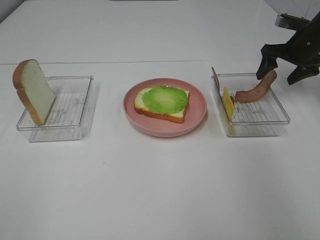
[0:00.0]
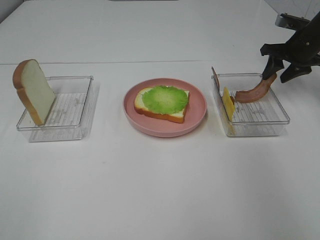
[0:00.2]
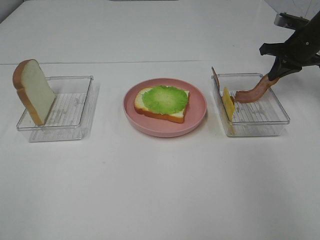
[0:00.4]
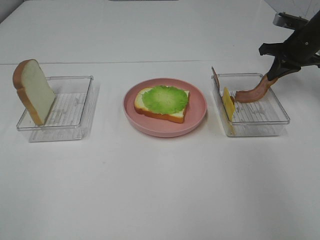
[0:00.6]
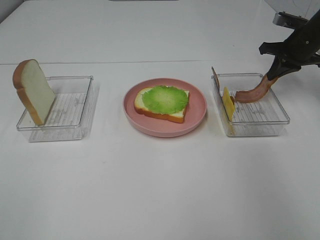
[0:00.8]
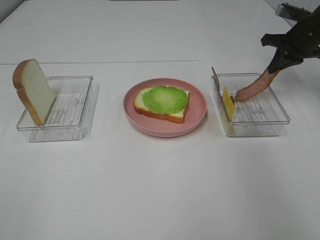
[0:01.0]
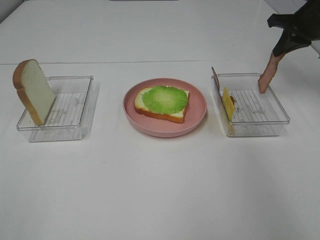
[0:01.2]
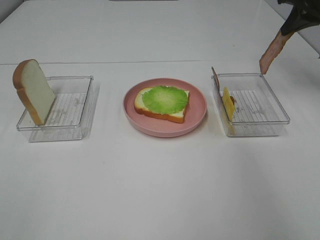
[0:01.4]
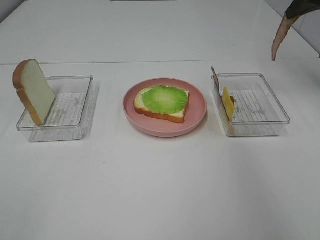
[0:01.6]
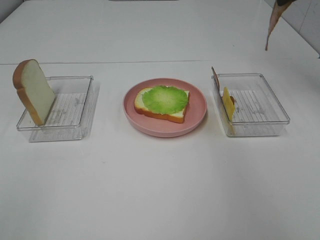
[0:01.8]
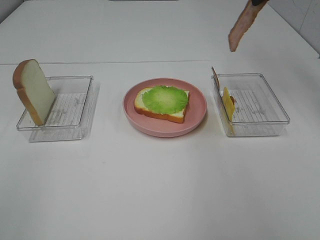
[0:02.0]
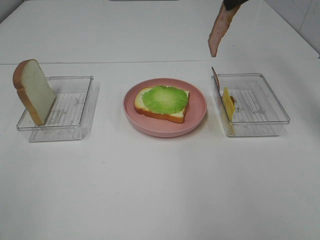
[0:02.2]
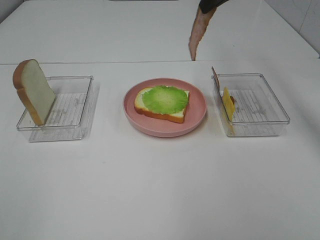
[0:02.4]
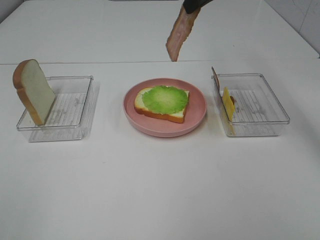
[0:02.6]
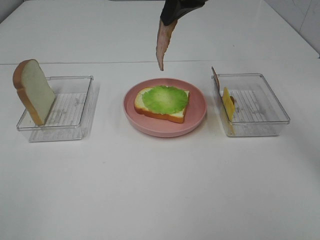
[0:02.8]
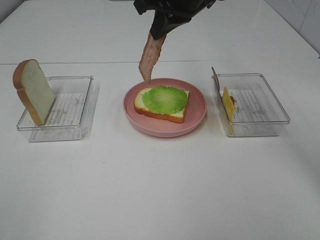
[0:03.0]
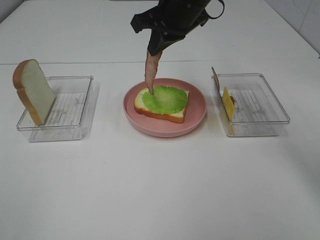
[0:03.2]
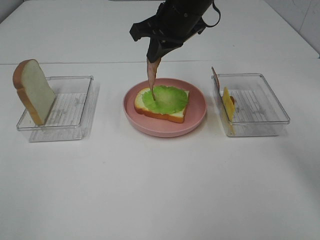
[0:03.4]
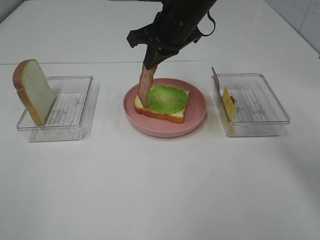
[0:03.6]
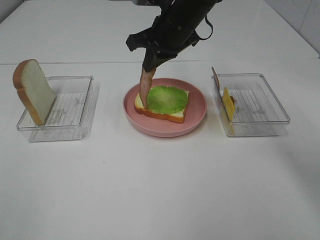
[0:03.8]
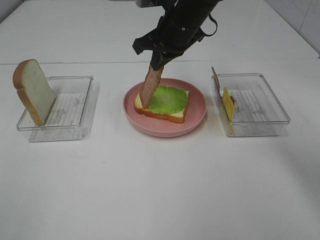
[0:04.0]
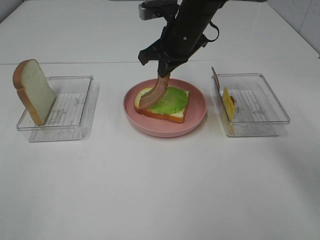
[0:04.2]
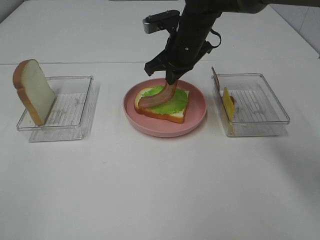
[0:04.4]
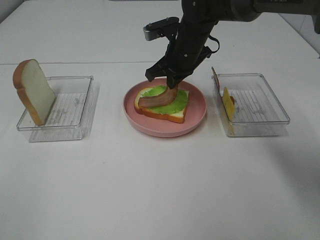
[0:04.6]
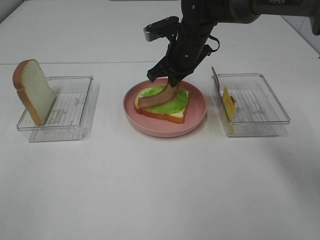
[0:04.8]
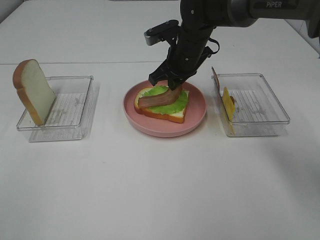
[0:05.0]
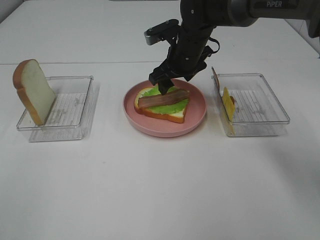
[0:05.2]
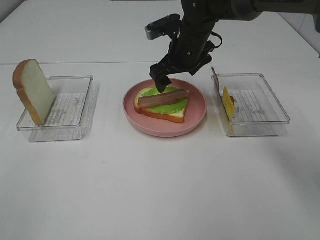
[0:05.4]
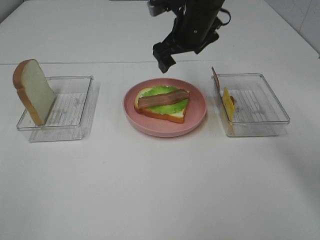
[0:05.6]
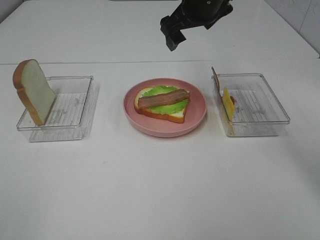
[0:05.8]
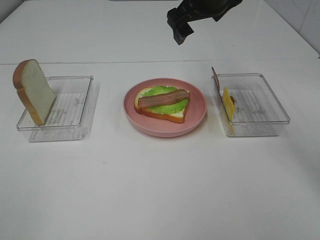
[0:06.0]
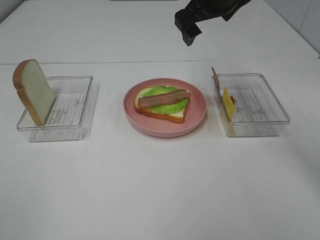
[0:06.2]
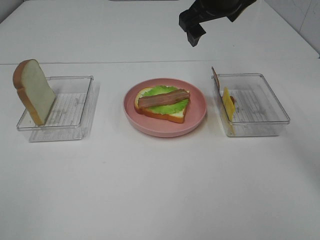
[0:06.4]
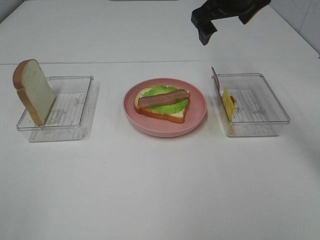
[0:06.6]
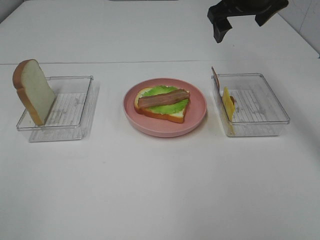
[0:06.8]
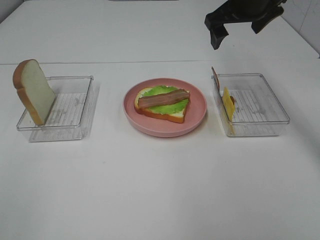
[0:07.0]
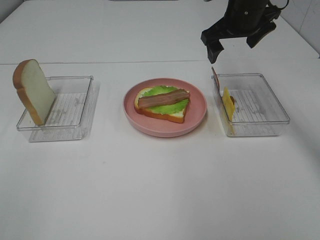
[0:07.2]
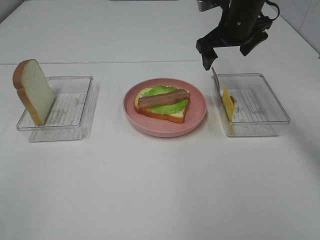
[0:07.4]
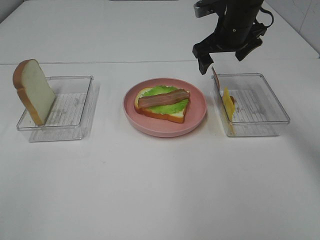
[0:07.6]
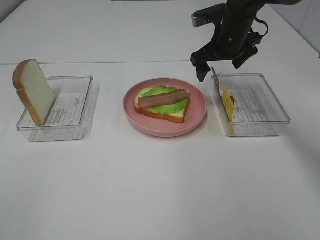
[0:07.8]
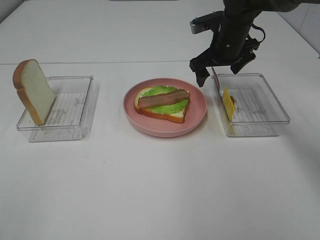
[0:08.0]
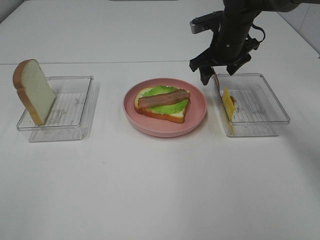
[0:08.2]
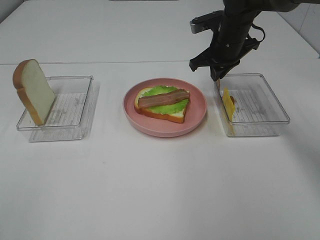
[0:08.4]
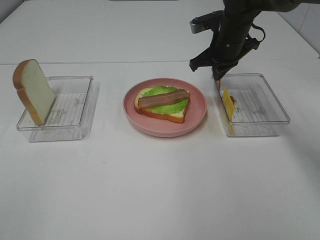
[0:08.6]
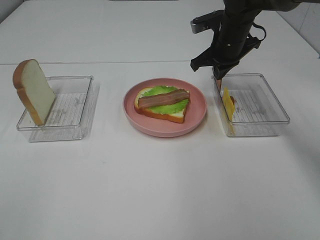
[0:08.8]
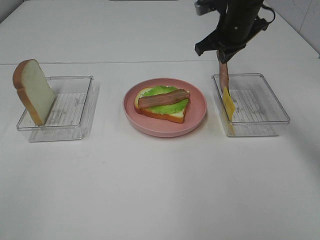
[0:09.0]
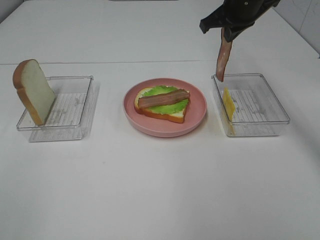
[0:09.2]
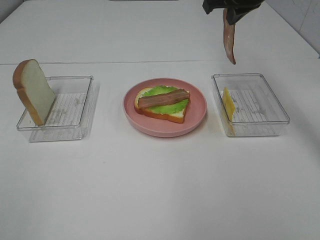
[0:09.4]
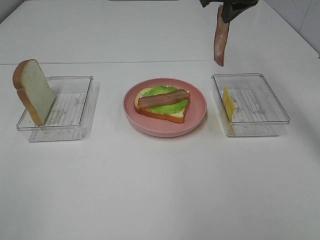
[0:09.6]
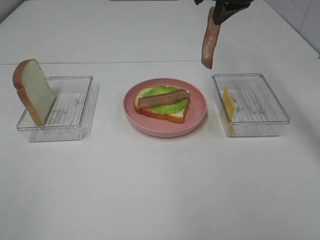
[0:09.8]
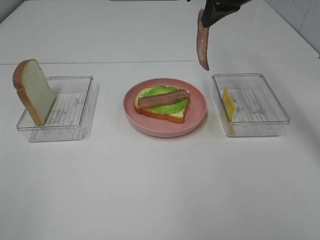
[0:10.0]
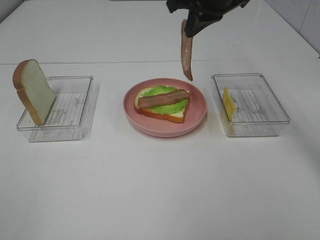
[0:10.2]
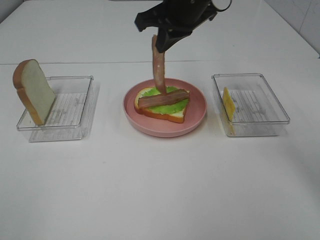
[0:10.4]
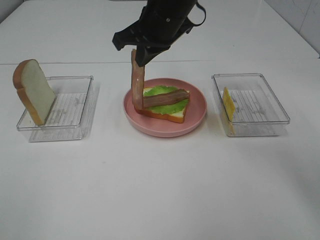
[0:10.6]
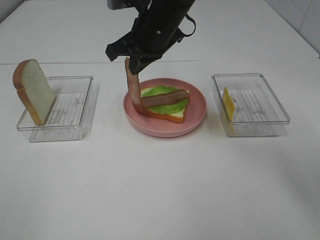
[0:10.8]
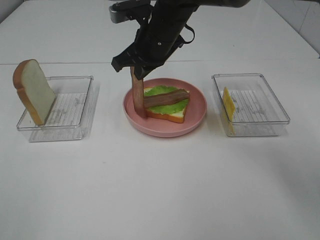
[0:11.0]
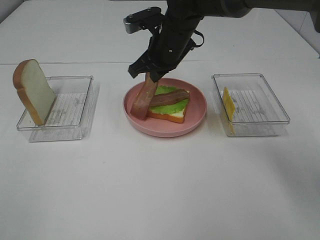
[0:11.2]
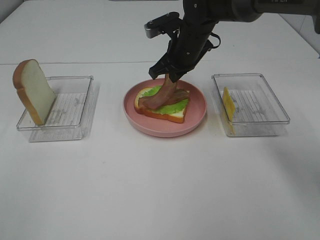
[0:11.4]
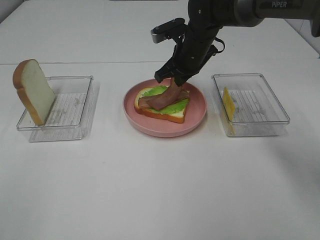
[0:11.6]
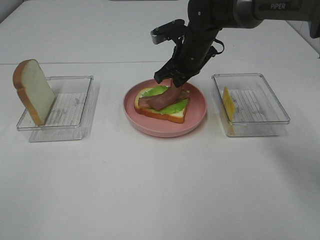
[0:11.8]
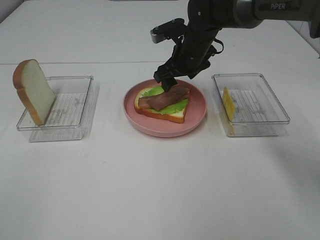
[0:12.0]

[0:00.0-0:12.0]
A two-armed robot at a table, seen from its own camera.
Task of the whole recording: Make sandwiches.
Step, 0:01.0 to 0:05.4: Right hand:place bacon on lettuce slice.
Step, 0:05.6 to 0:08.8: Right hand:grab the bacon.
0:00.0 to 0:01.6: The right gripper goes about 15 cm upward, and closes.
0:01.6 to 0:03.0: The right gripper heads to the left, covering about 25 cm.
0:03.0 to 0:04.4: The right gripper moves downward, some 10 cm.
0:04.4 to 0:06.0: The right gripper goes roughly 10 cm upward, and opens up.
0:06.0 to 0:07.6: The right gripper travels downward and to the right by approximately 10 cm.
0:07.6 to 0:09.0: The right gripper closes.
0:09.0 to 0:10.4: The right gripper heads to the left, backward and upward, covering about 15 cm.
0:10.4 to 0:12.0: The right gripper shifts roughly 15 cm downward and forward, and opens up.

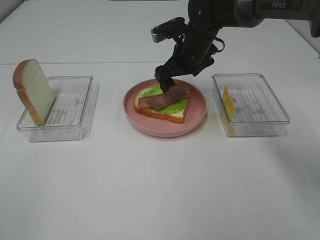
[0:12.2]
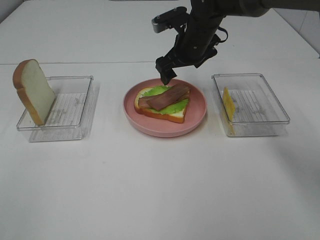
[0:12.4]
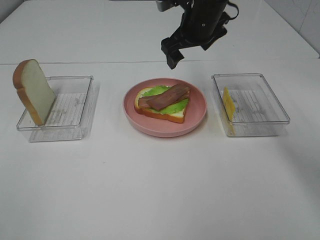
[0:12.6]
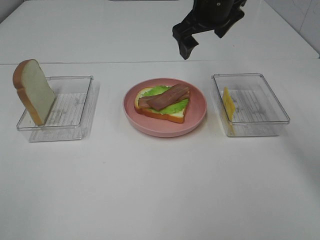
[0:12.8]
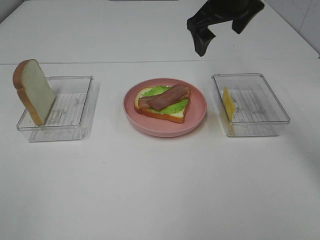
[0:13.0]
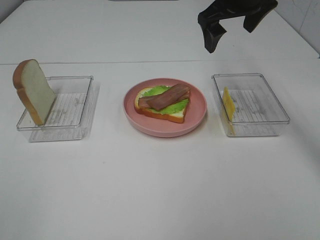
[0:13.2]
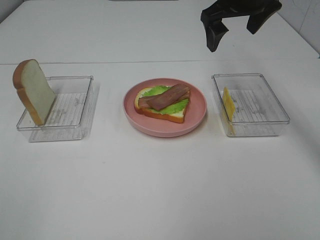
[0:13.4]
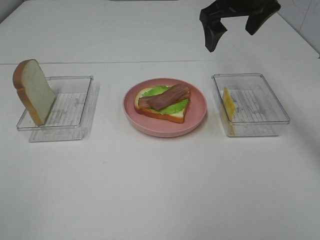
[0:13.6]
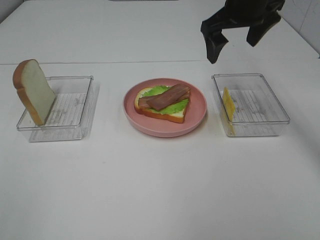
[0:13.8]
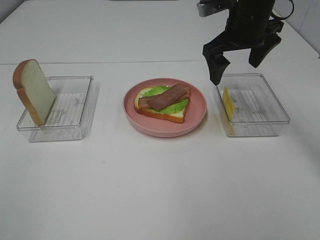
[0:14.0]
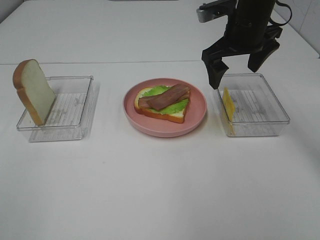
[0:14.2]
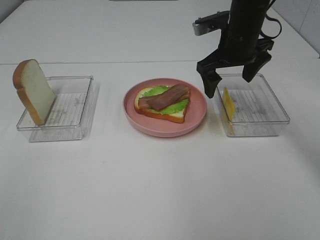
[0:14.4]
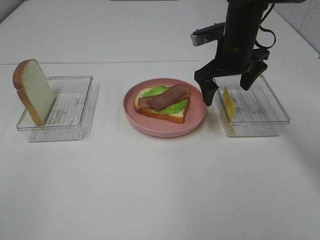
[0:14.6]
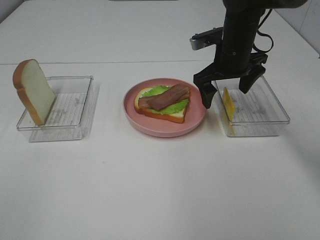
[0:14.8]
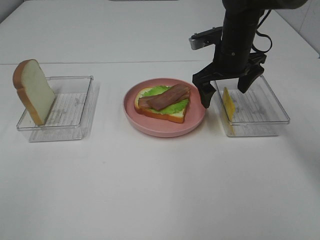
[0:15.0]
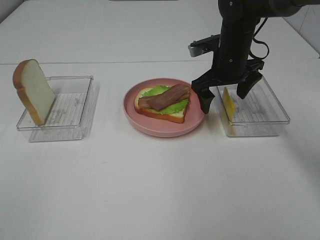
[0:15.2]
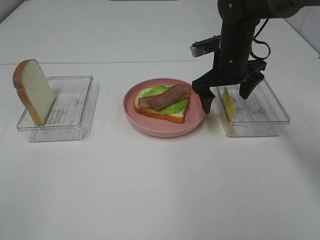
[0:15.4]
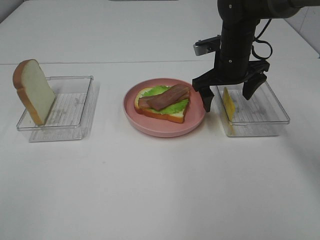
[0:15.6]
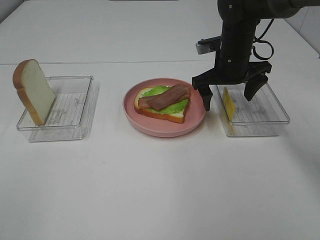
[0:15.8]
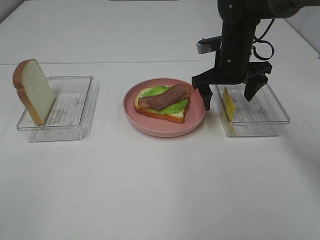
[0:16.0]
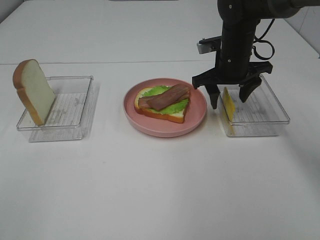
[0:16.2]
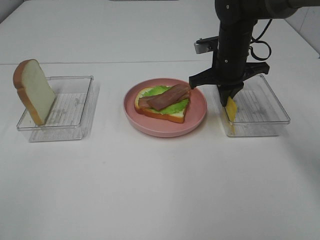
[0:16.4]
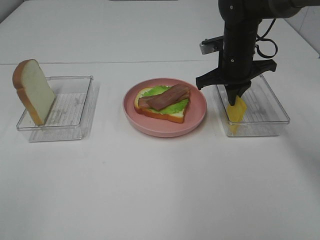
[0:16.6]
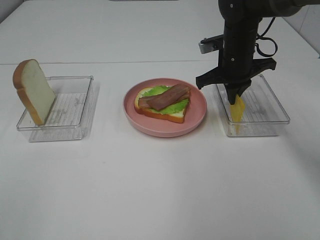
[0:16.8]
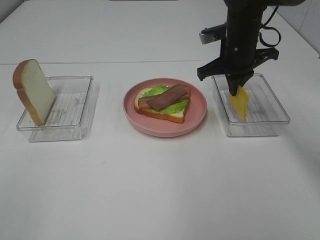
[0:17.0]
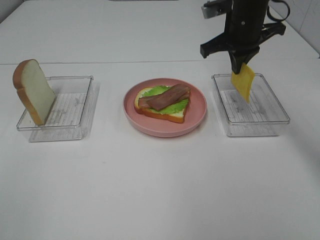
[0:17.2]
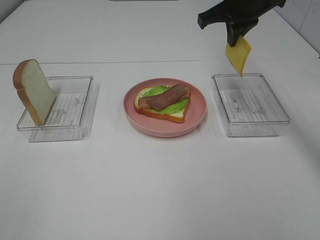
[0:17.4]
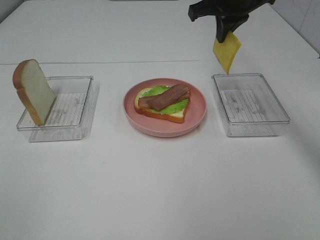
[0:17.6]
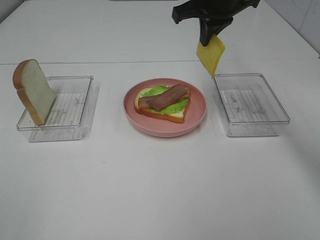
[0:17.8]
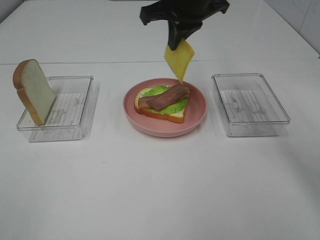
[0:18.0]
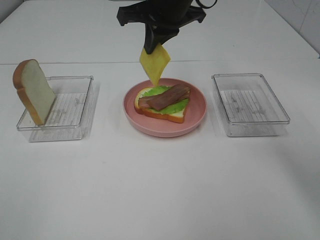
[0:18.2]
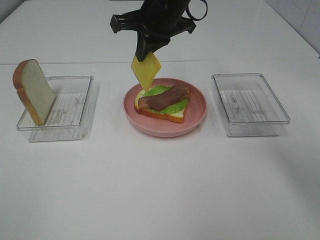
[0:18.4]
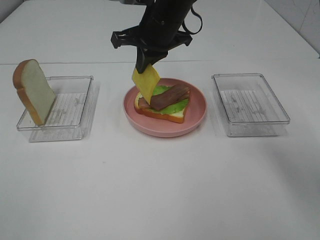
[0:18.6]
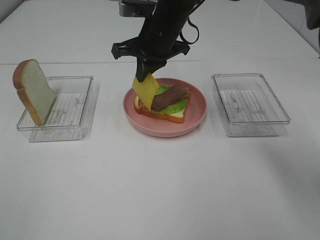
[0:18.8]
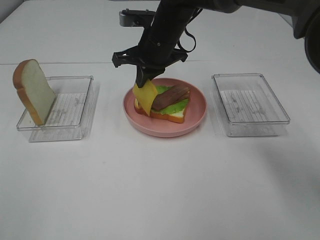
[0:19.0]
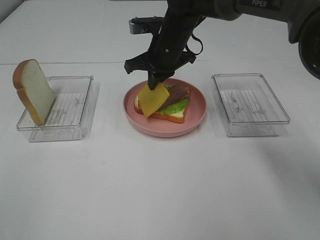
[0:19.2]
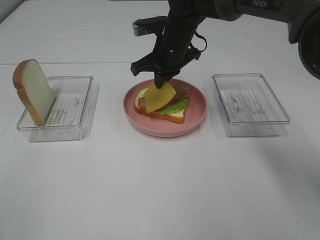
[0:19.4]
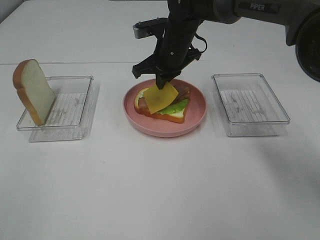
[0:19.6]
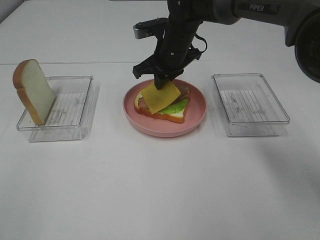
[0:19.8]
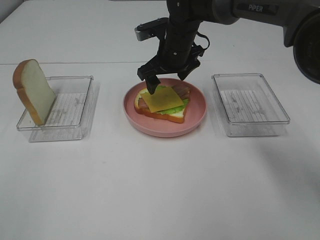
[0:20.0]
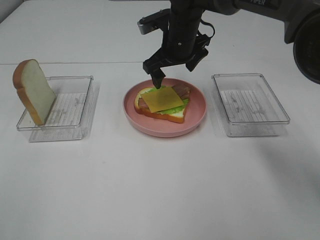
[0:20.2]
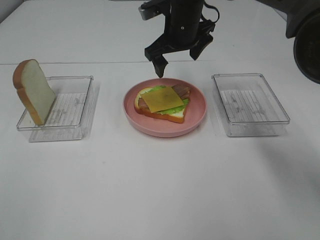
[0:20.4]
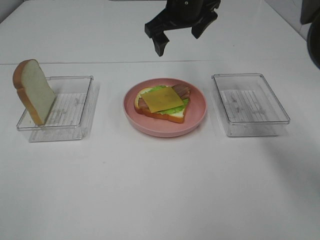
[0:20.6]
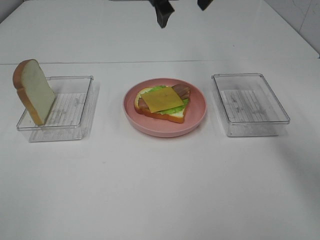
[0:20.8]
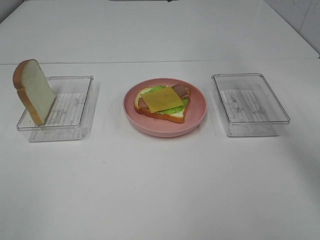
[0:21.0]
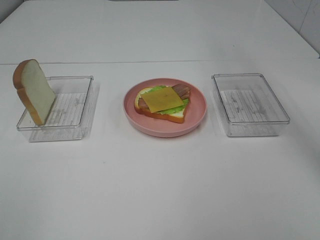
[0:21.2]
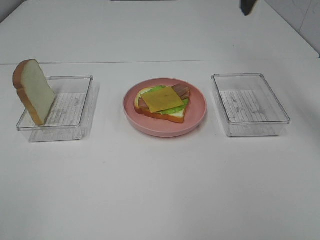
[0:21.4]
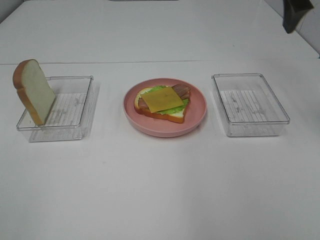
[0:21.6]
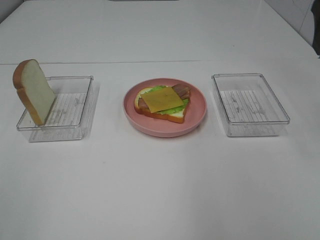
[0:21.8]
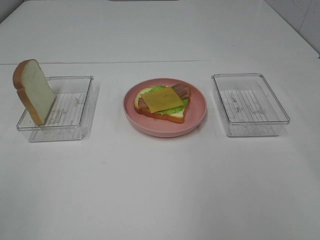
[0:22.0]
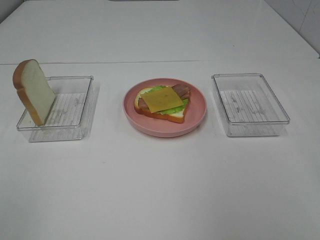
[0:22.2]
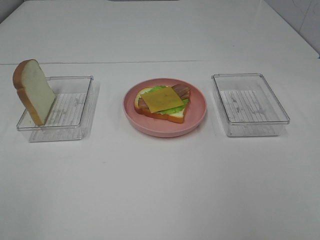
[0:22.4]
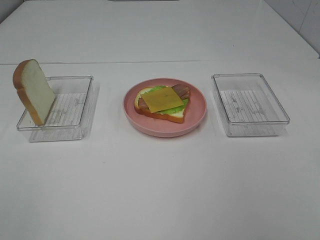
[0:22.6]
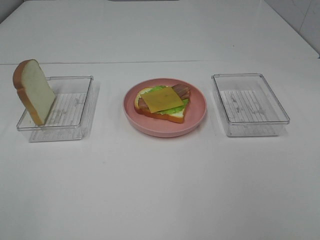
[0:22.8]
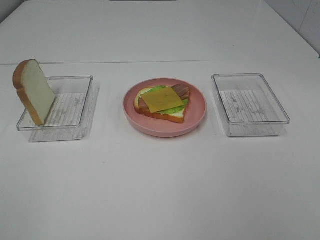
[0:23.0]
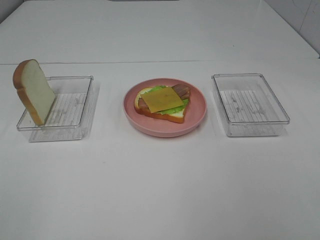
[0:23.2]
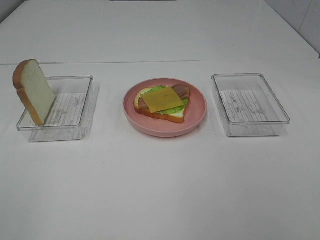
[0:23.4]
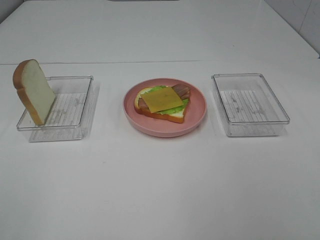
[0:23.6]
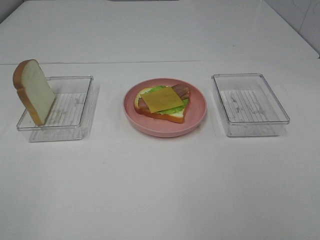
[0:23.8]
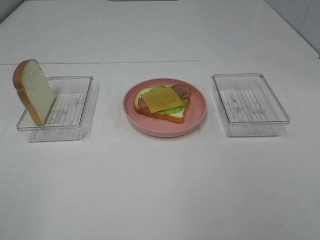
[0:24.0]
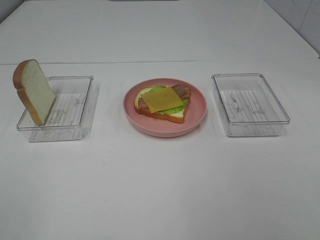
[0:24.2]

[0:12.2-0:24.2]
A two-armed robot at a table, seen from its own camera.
Task of the whole recording: Make sandwiches.
Step, 0:12.2 to 0:16.6: Right hand:grab the cheese slice.
Step, 0:16.8 to 0:20.4: Right hand:place the cheese slice on top of the bacon.
0:12.2 to 0:13.8: The right gripper moves upward and to the right, approximately 15 cm.
0:13.8 to 0:15.2: The right gripper is displaced downward by approximately 10 cm.
0:15.2 to 0:16.6: The right gripper closes.
0:16.6 to 0:18.2: The right gripper travels to the left and upward by roughly 15 cm.
0:18.2 to 0:19.8: The right gripper is displaced downward by approximately 10 cm.
0:19.8 to 0:21.2: The right gripper heads upward, covering about 20 cm, and opens up.
